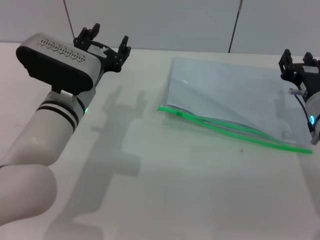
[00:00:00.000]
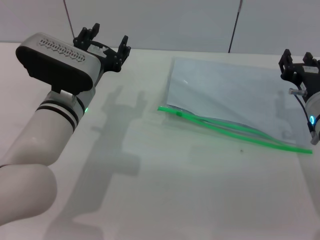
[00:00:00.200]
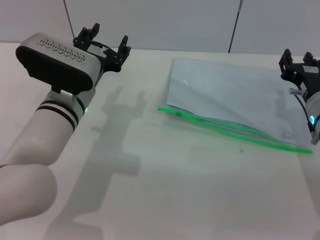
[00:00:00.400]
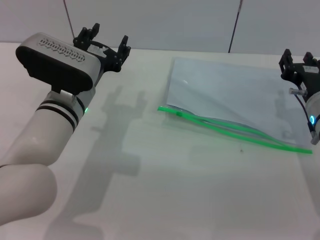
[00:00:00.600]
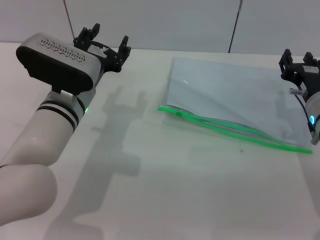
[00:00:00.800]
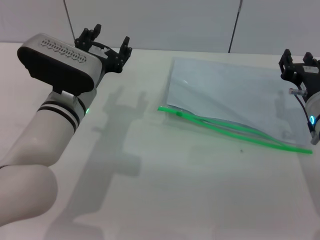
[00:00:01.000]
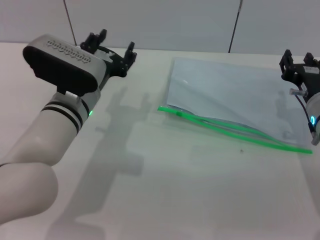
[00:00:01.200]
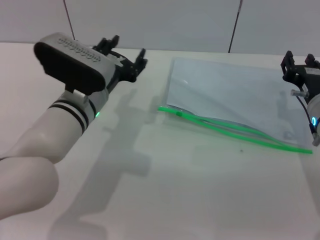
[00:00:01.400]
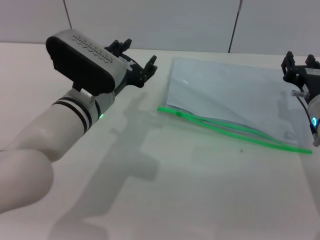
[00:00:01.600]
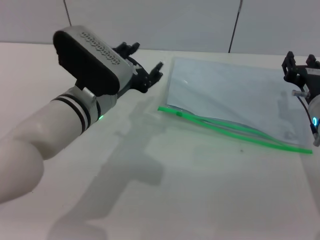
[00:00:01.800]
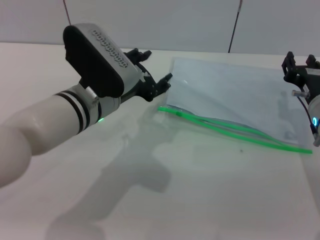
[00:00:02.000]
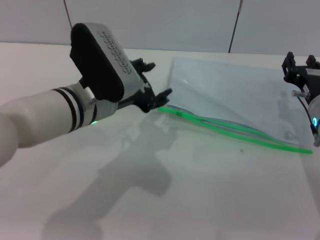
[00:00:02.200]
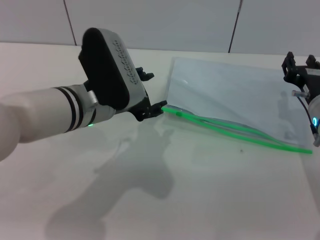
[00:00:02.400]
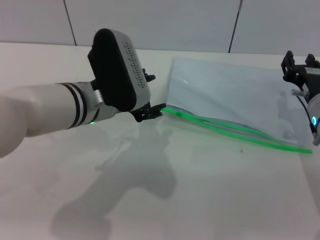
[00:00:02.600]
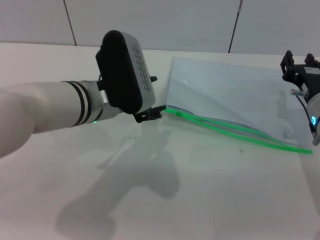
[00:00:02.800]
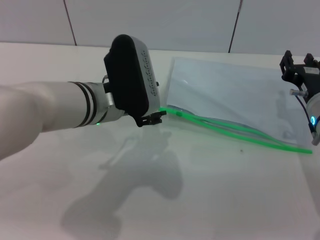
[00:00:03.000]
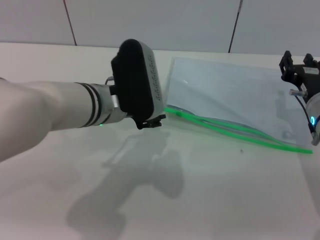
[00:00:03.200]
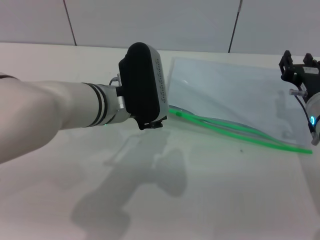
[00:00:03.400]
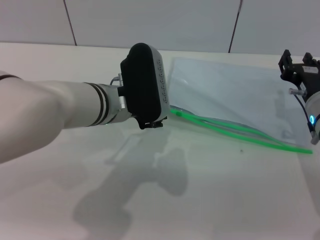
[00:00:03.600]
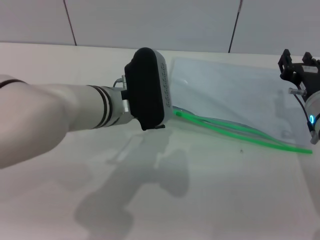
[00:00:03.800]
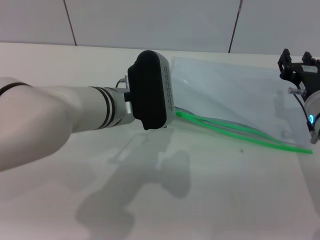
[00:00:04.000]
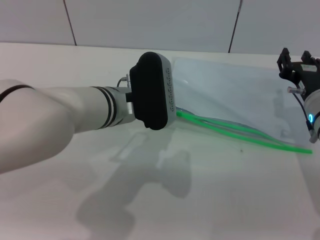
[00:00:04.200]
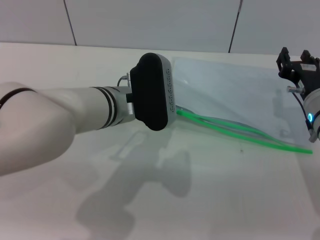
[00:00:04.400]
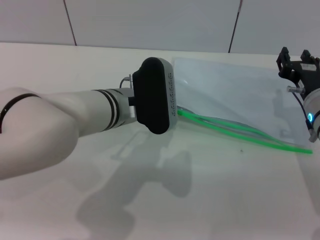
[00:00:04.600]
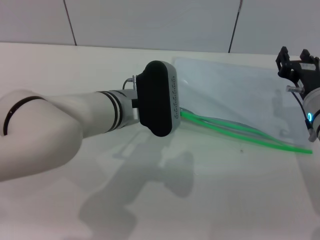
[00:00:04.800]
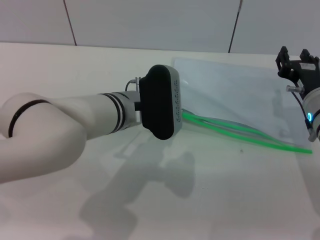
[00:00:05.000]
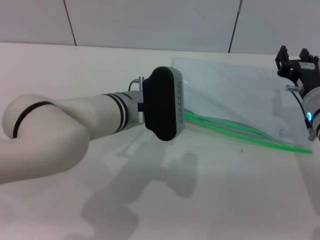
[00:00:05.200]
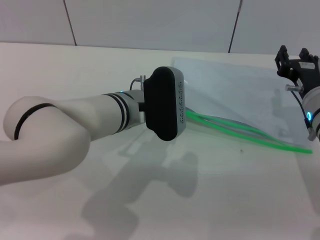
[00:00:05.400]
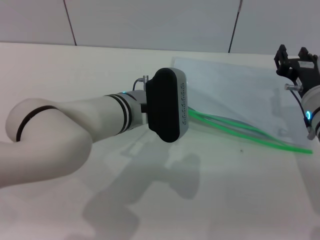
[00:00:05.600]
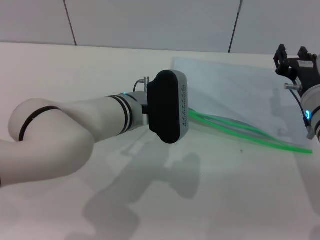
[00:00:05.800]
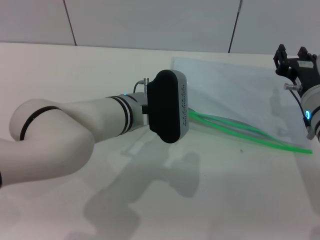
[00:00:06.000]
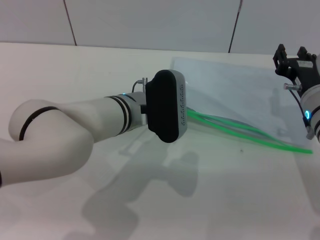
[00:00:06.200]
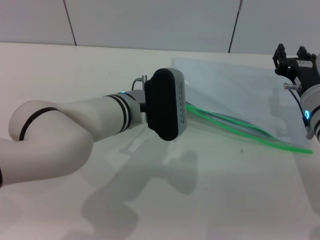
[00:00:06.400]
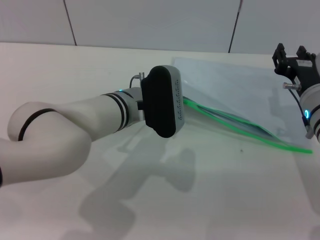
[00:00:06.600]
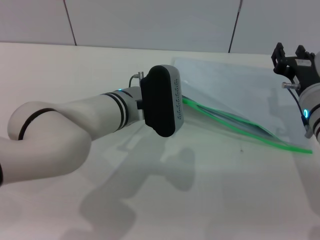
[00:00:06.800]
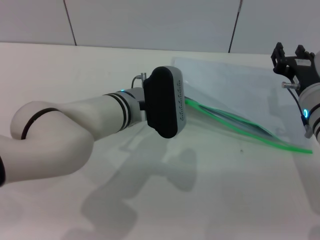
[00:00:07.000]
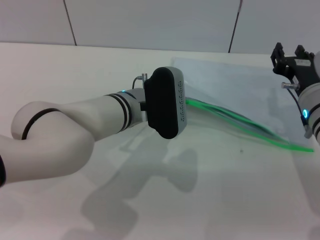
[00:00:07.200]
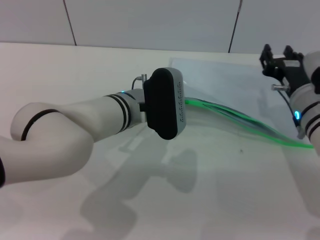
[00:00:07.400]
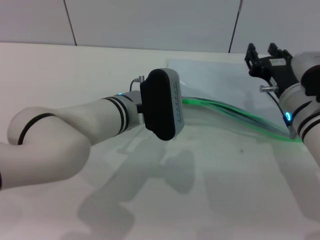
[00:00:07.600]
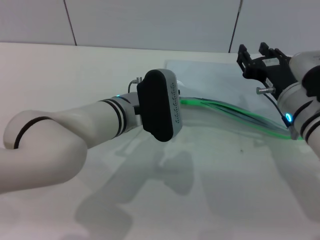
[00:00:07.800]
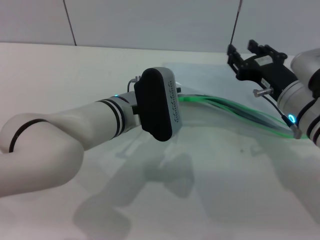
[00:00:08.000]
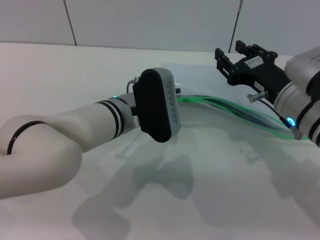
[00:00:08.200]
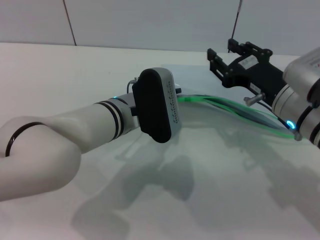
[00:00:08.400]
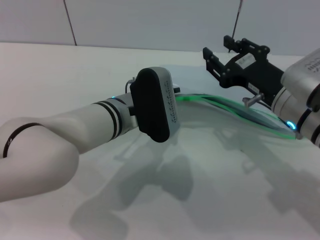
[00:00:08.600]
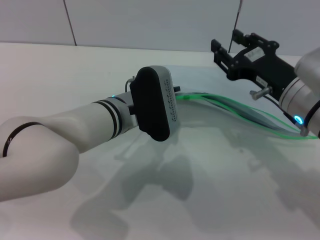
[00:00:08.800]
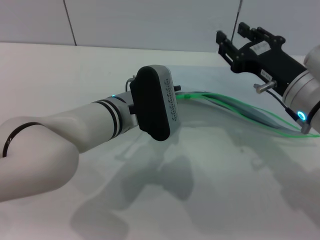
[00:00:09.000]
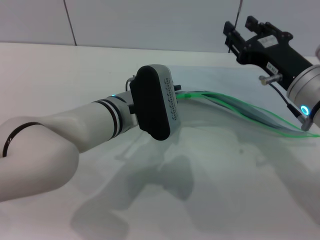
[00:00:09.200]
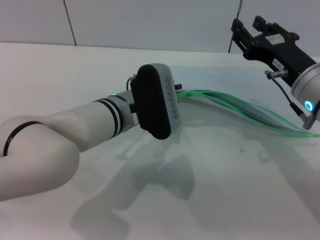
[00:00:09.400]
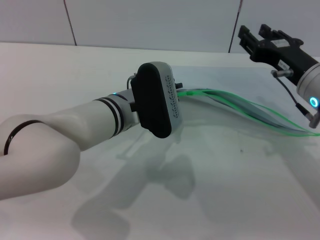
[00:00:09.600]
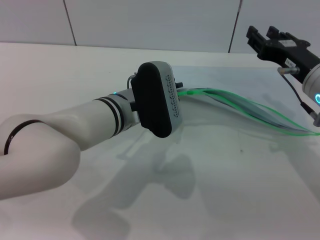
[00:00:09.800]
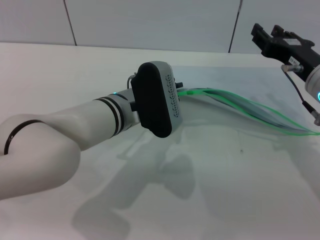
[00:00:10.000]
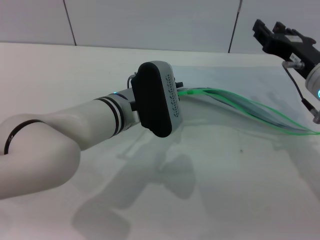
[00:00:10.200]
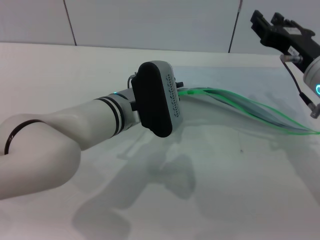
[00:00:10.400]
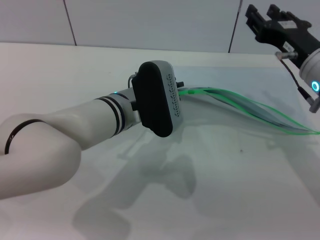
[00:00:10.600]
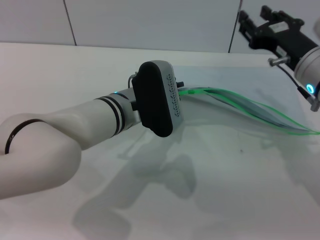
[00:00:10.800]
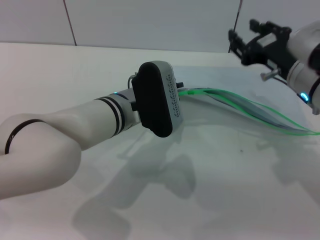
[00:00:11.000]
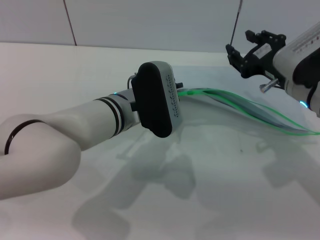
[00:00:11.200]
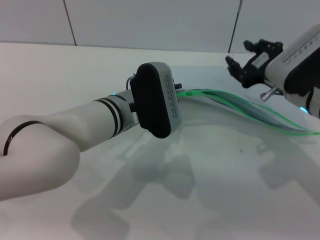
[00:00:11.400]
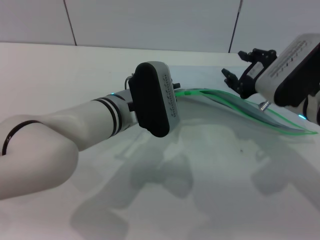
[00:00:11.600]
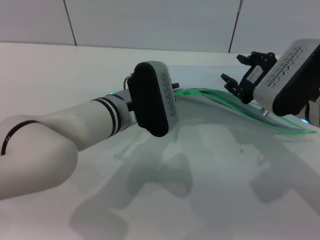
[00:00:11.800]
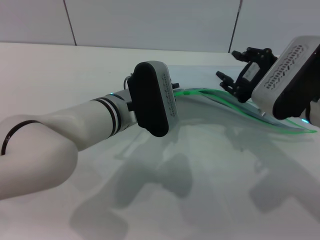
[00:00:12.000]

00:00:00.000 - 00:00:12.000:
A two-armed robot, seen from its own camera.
Step, 00:00:00.000 - 00:00:07.800: Pick up the transparent plastic bag with the left gripper.
00:00:00.000 - 00:00:01.600: The grippers move only a little.
00:00:03.000 - 00:00:04.400: The grippers move only a little.
00:00:04.400 - 00:00:06.000: The grippers make only small movements.
00:00:06.000 - 00:00:07.600: The left gripper closes.
00:00:07.600 - 00:00:09.000: The right gripper heads upward, covering about 5 cm.

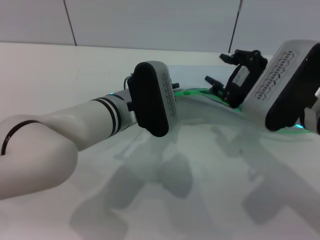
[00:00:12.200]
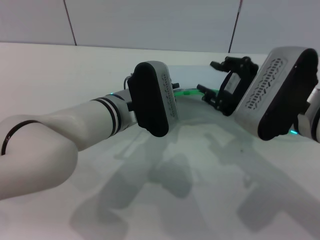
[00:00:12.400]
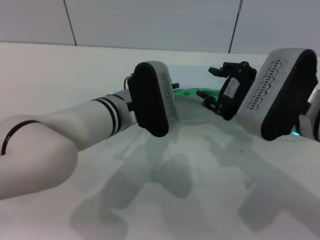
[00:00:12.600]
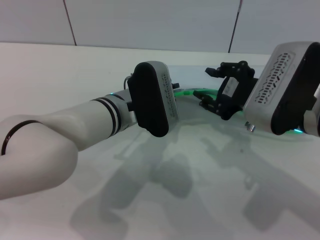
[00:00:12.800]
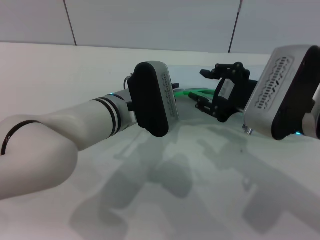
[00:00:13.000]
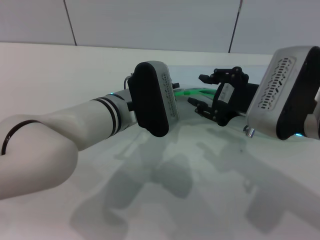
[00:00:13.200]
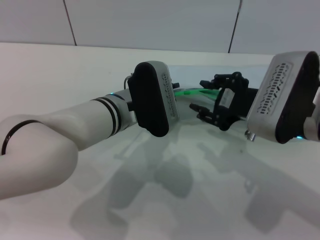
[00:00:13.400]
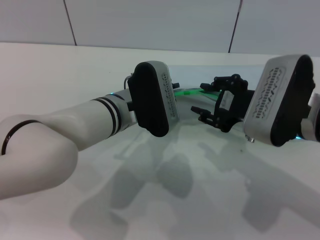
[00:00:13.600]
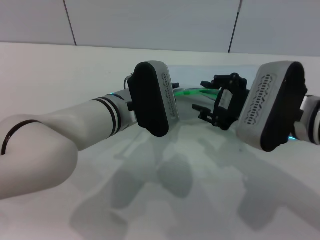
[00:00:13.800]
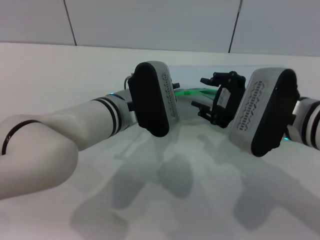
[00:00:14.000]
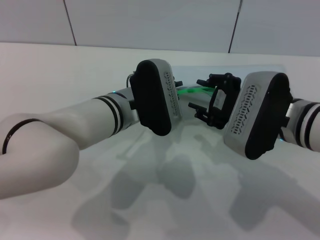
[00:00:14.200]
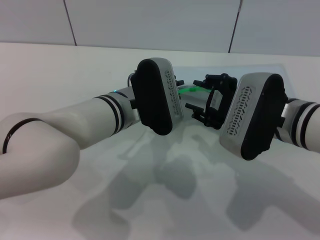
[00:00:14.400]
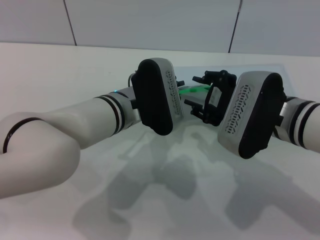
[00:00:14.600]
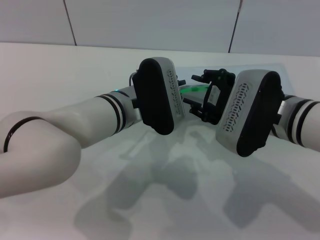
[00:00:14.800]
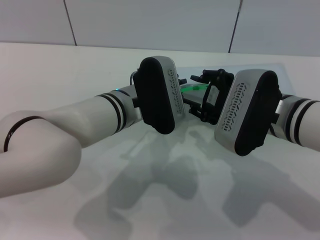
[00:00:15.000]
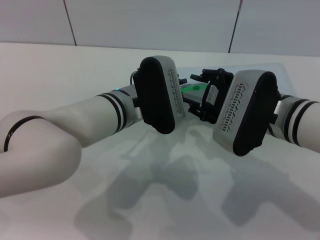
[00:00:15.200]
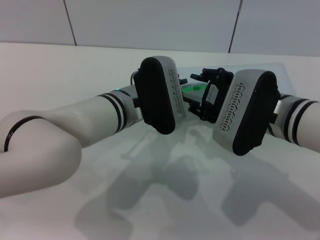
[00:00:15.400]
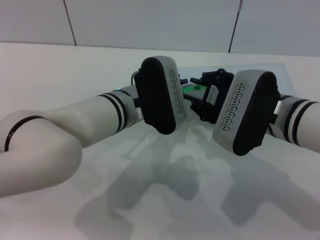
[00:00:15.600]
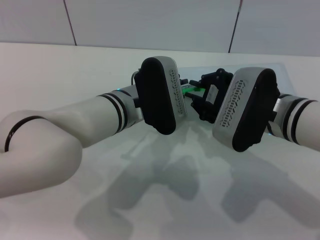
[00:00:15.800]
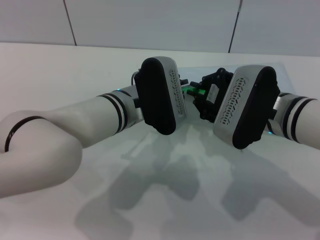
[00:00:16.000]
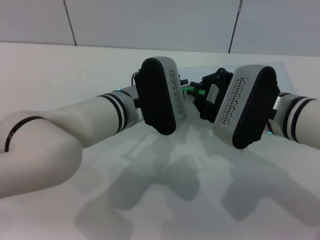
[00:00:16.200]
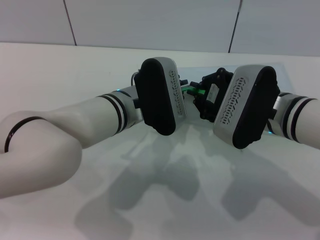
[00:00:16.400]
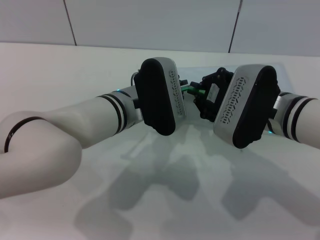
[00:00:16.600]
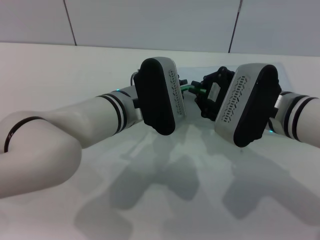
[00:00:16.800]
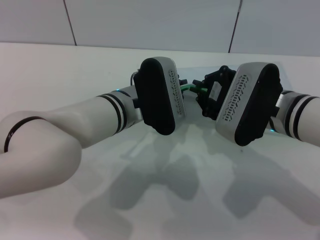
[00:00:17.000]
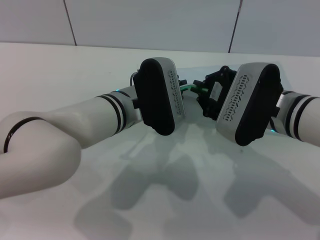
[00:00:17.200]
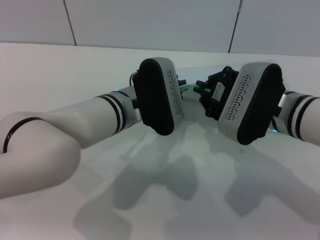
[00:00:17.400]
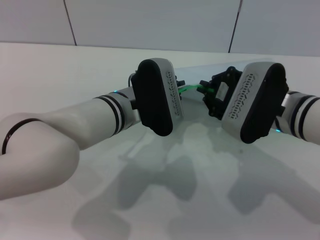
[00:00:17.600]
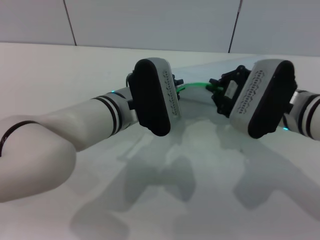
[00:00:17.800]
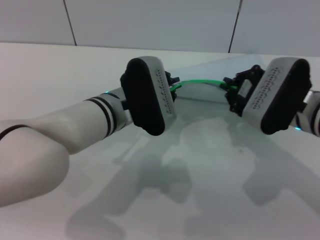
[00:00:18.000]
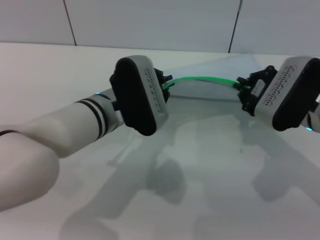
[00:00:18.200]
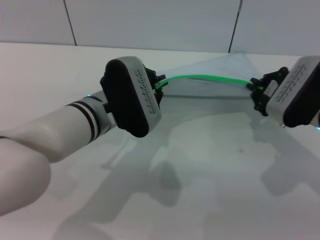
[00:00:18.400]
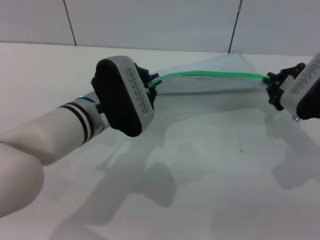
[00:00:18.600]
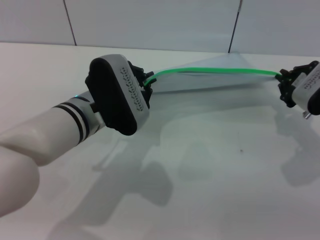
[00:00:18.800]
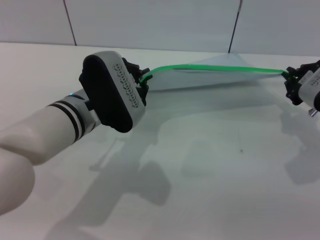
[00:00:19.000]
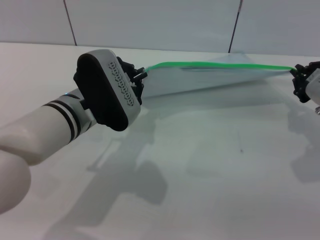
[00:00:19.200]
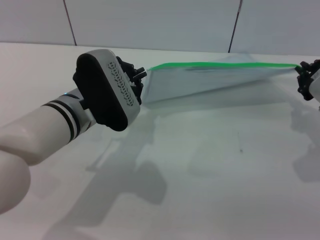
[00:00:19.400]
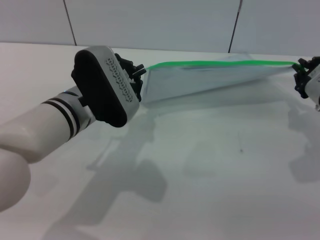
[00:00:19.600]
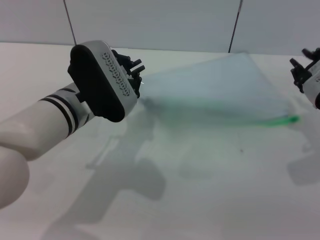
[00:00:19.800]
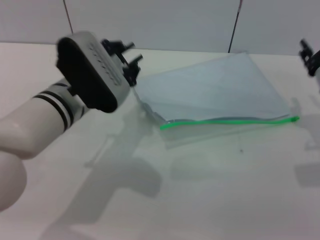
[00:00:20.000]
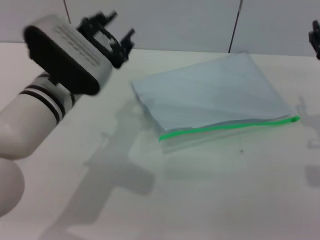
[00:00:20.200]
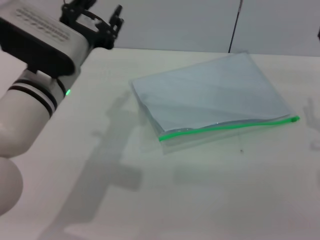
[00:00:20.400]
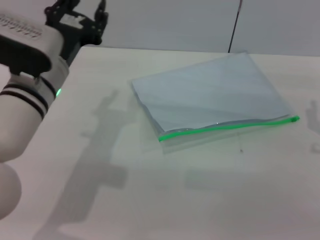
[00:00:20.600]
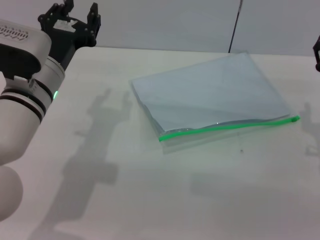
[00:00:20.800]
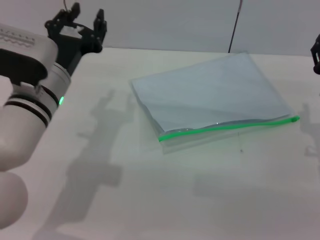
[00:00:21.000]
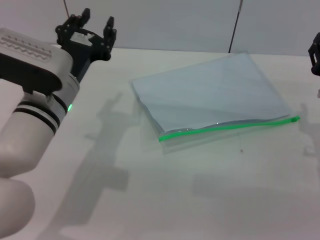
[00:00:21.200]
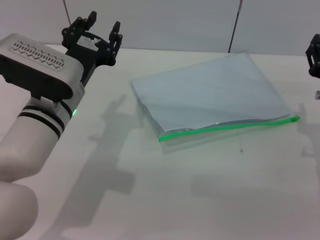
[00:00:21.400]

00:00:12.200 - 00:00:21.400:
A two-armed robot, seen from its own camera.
Step, 00:00:12.200 - 00:00:20.000: Pulling up the zipper on the transparent plastic bag with the right gripper to close it.
Step, 00:00:20.200 - 00:00:20.800: Place the transparent plastic bag.
00:00:12.200 - 00:00:15.200: There are only small adjustments of the grippers.
00:00:15.200 - 00:00:16.800: The right gripper closes up.
00:00:16.800 - 00:00:18.400: The right gripper travels to the right by roughly 10 cm.
00:00:19.800 - 00:00:21.400: The right gripper moves roughly 5 cm, and opens up, while the left gripper opens up.
